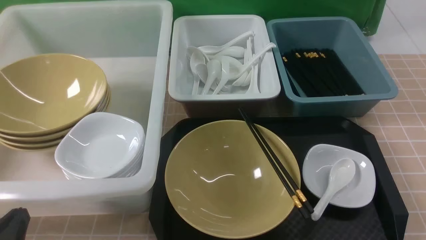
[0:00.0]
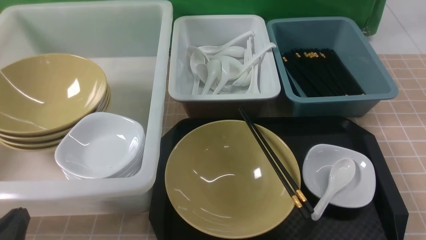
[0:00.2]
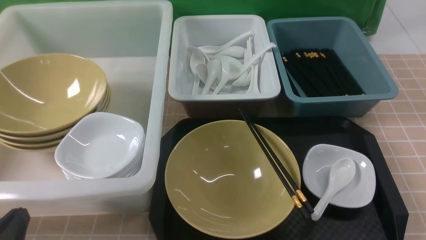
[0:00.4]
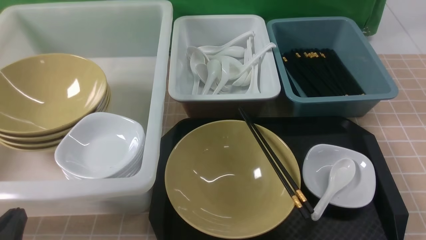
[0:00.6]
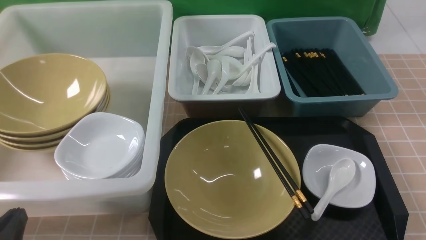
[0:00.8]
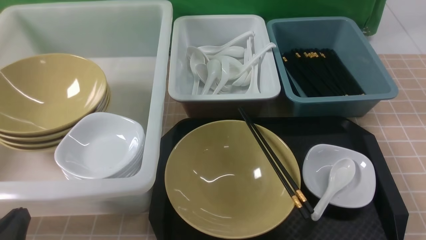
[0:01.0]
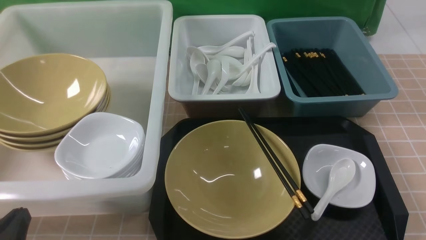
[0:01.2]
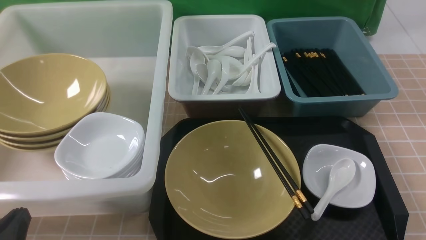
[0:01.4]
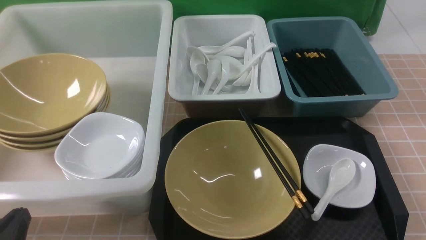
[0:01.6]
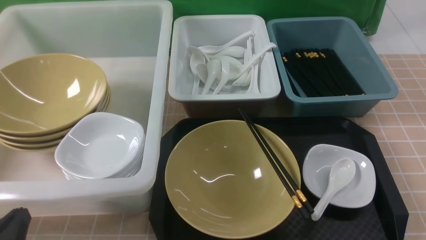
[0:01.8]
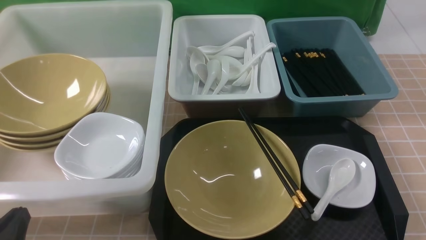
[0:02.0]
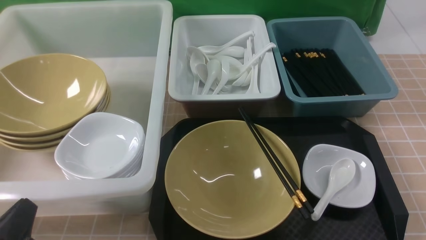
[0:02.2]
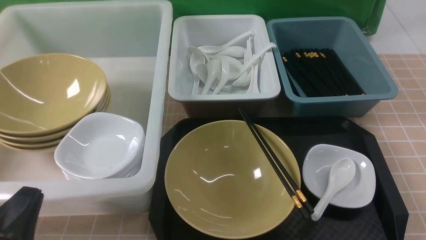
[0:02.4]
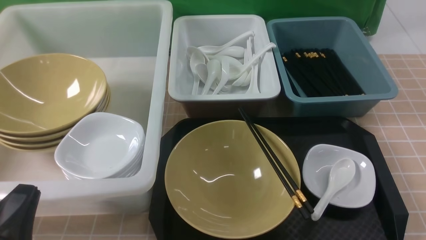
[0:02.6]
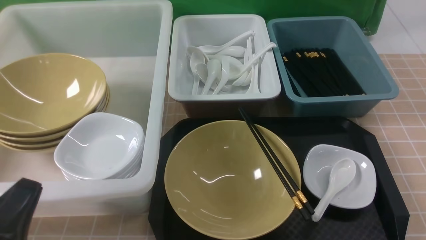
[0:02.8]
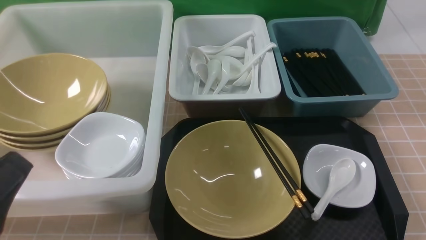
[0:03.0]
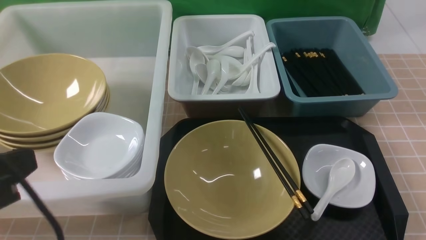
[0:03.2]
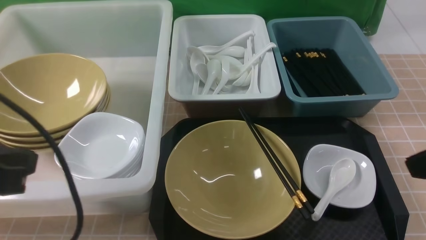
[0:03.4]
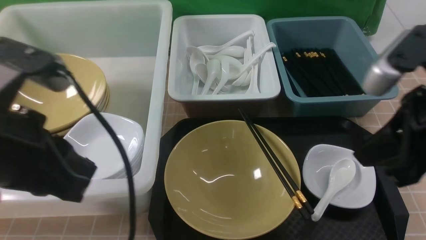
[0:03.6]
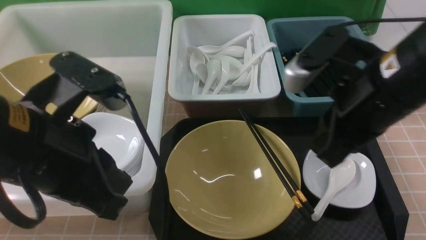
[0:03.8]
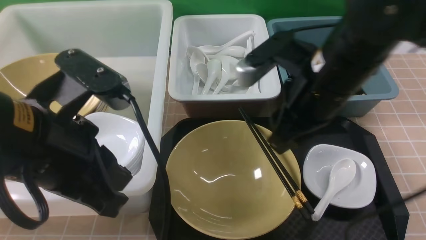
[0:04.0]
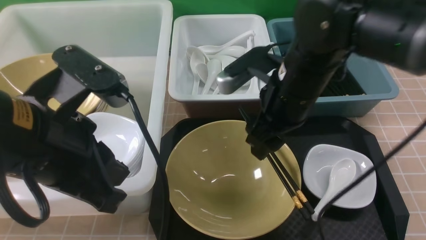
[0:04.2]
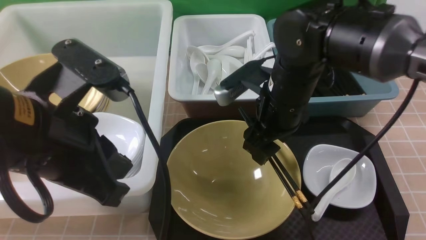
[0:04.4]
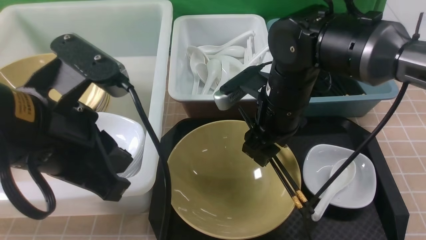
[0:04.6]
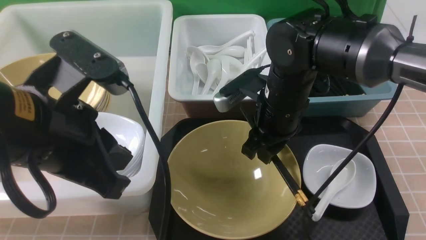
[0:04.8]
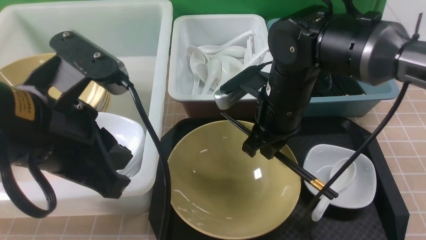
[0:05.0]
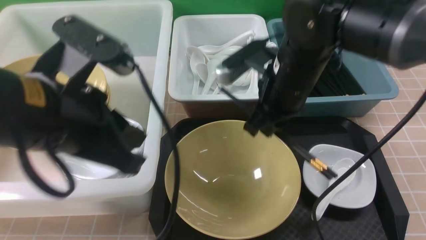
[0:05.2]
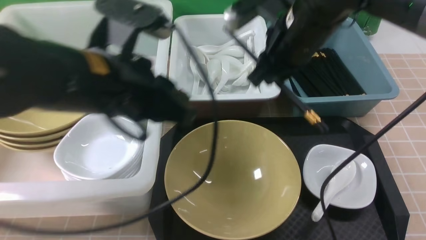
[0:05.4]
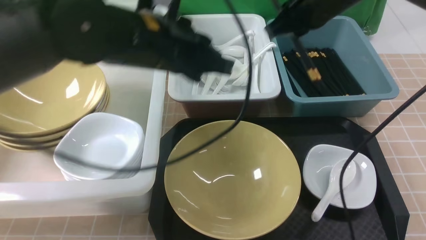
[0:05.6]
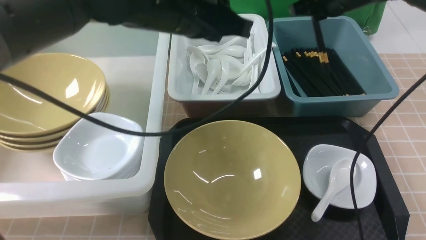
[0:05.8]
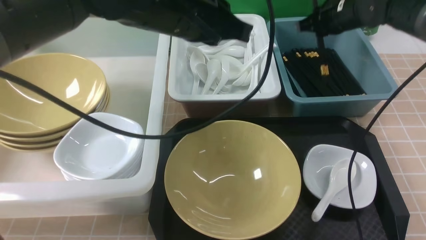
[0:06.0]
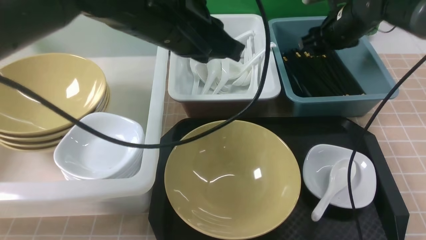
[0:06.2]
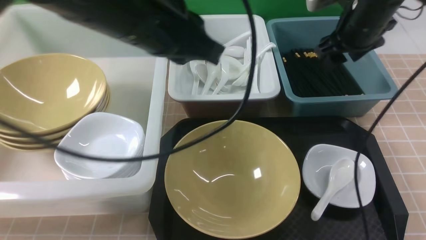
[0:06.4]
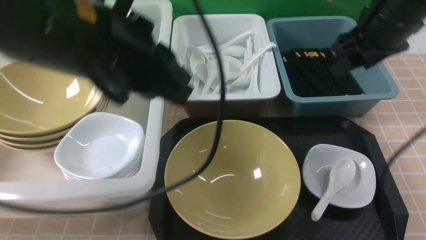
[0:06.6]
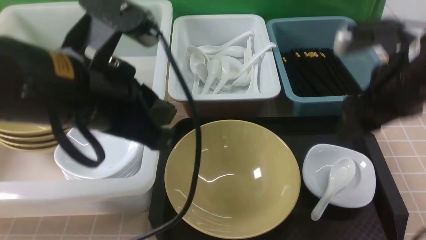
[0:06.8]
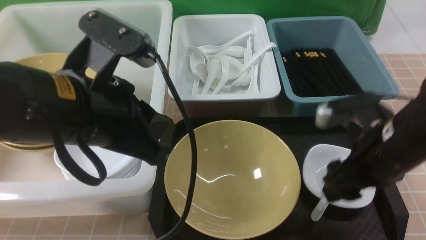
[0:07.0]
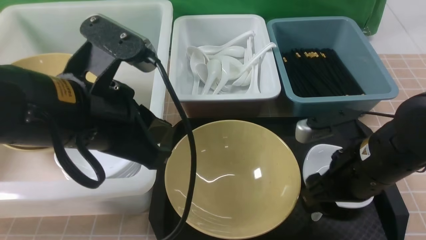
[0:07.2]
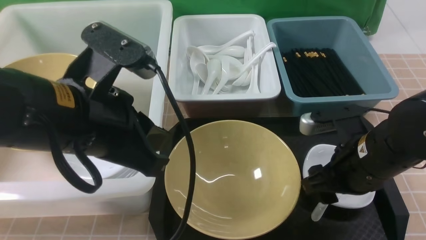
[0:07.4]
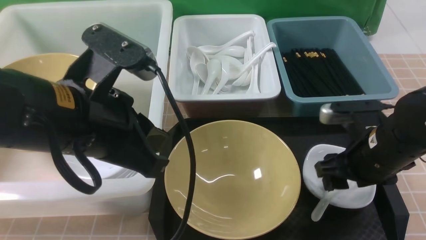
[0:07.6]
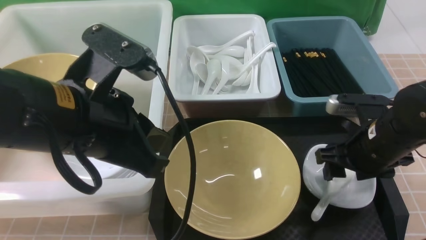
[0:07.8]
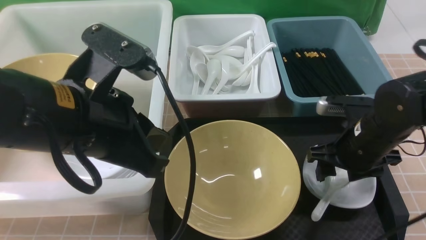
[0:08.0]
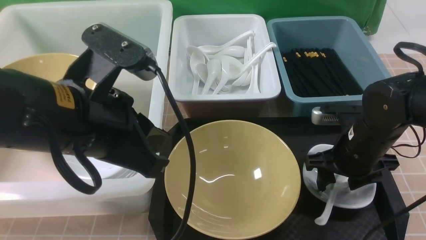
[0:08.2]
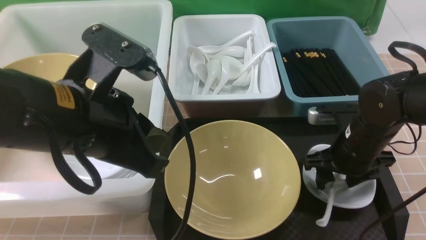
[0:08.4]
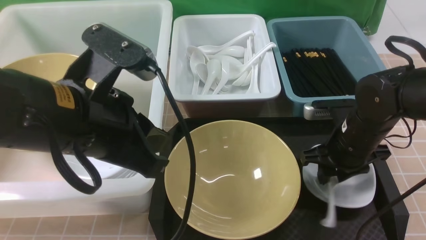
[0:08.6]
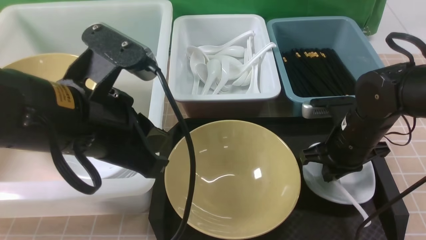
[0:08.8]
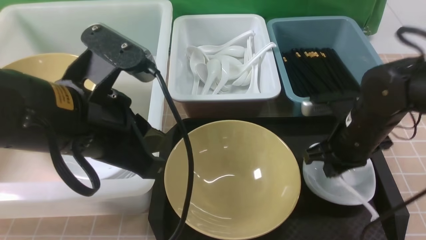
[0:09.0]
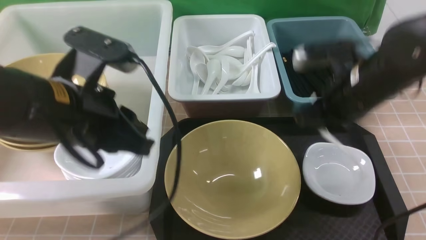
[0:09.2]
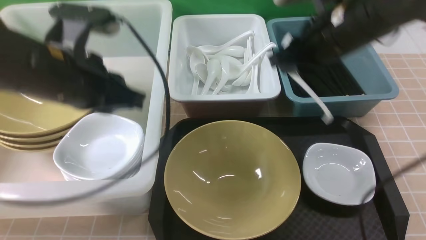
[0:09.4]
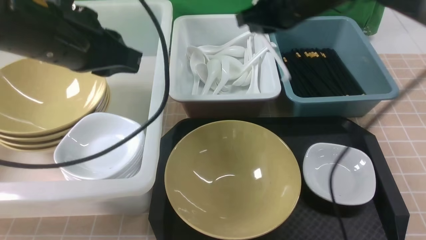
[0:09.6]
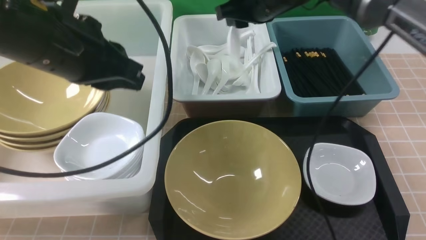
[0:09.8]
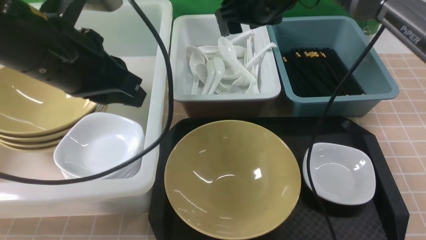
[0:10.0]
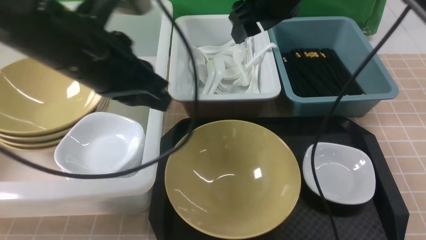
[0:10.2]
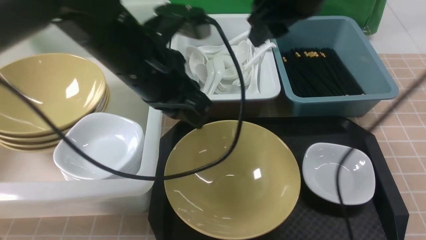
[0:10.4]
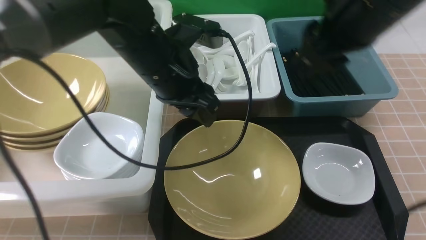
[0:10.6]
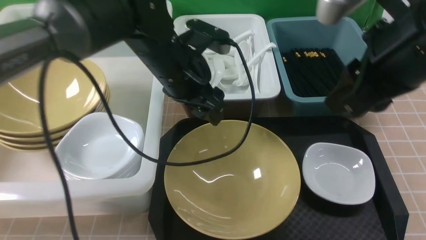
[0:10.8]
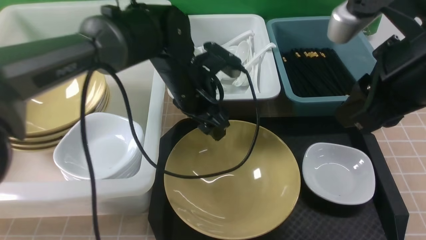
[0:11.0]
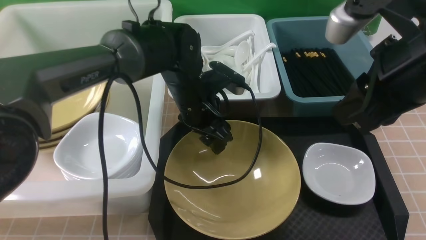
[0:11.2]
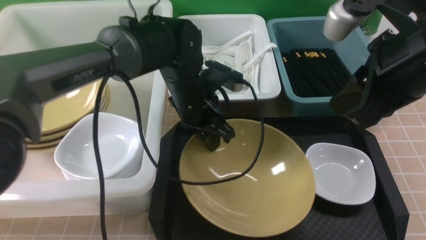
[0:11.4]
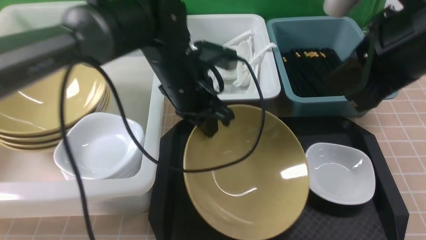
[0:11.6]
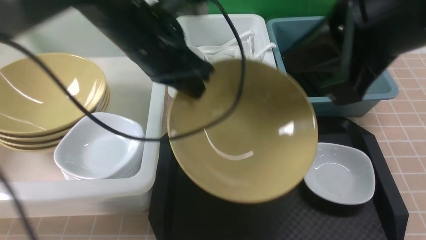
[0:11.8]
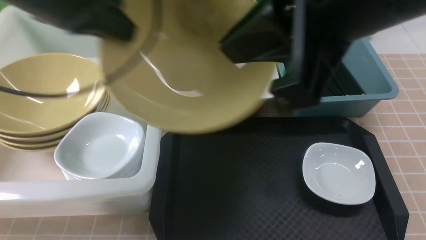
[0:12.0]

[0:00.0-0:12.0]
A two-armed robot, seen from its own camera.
Task of the whole recording: on brown table put chopsticks spoon bowls plates into blue grey white boxes.
Step, 0.0 to 5.0 s: use the right arm to grab the chopsticks.
Step, 5.2 to 6.4 s: use the right arm to put the chopsticks into the small storage box on the right.
Step, 6.8 to 8.8 s: use the right arm to grab the soup spoon in the middle.
Step, 9.0 to 10.2 s: use the right arm to put the soup spoon into the small storage box in the middle.
Step, 10.6 to 11.6 s: use the left arm to grab the yellow noodle bowl on the left.
0.0 to 1.6 s: The two grippers keep their place.
1.6 to 3.0 s: The left gripper is displaced upward by some 10 cm.
3.0 to 4.4 s: The right gripper shifts some 35 cm forward and to the left, and opens up, while the left gripper is displaced forward, to the right and upward by about 15 cm.
4.4 to 6.0 s: Both grippers move forward and to the right, roughly 20 cm. The right gripper closes up.
6.0 to 7.6 s: The right gripper shifts about 20 cm backward, and opens its fingers. Meanwhile the left gripper travels backward and to the left by roughly 15 cm.
7.6 to 9.0 s: The right gripper shifts approximately 5 cm forward, and closes up.
9.0 to 10.4 s: The left gripper goes approximately 10 cm forward; the right gripper shifts roughly 20 cm upward, and opens its fingers.
10.4 to 12.0 s: The right gripper heads backward and upward, covering roughly 20 cm, and closes. The left gripper is displaced to the left and upward by about 15 cm, and opens and closes again.

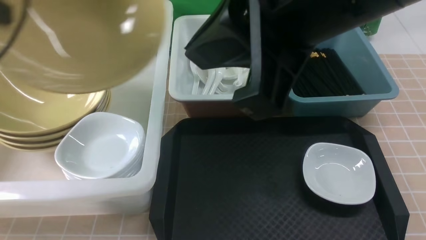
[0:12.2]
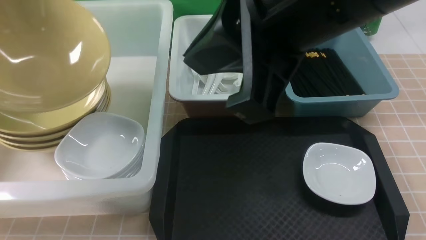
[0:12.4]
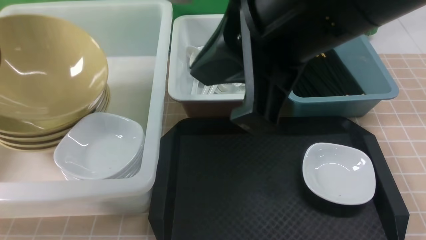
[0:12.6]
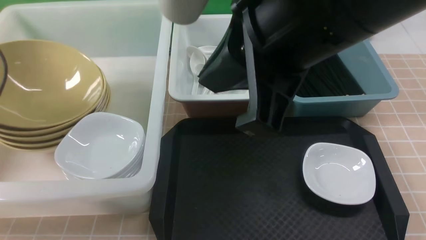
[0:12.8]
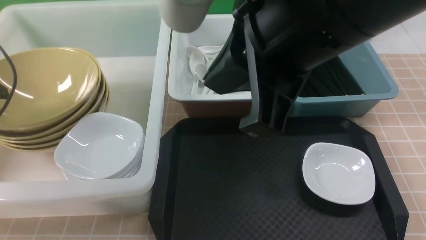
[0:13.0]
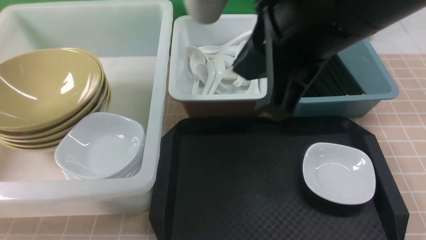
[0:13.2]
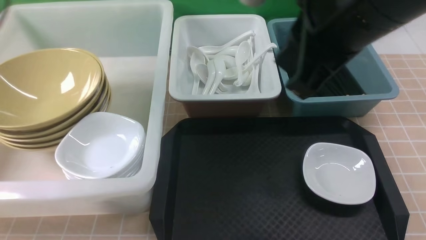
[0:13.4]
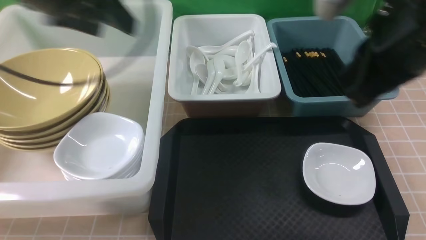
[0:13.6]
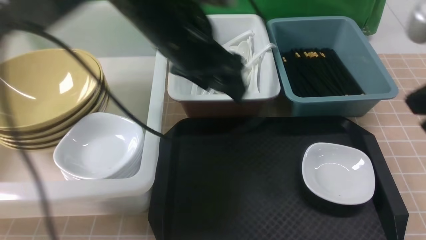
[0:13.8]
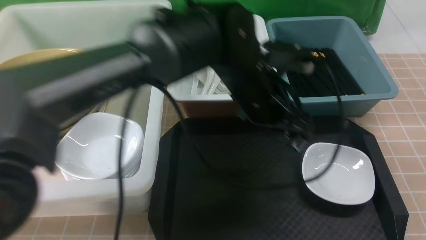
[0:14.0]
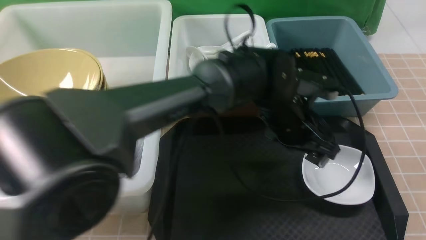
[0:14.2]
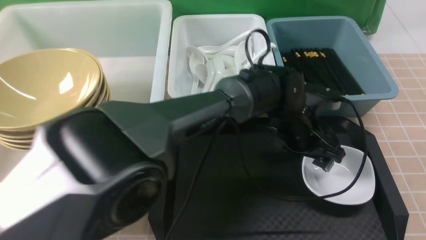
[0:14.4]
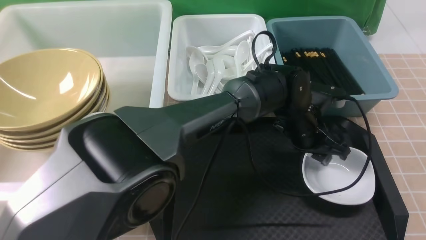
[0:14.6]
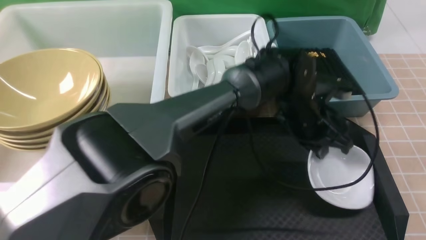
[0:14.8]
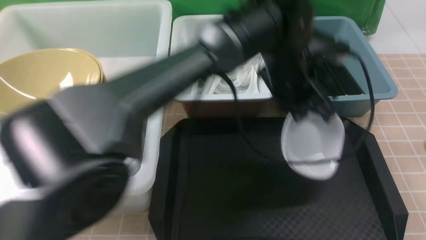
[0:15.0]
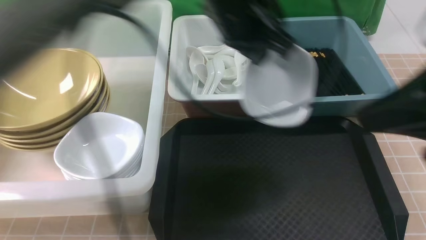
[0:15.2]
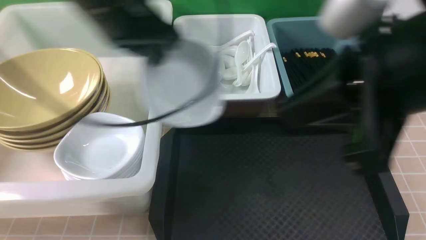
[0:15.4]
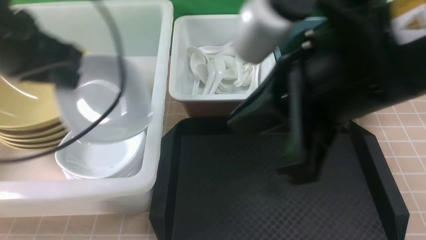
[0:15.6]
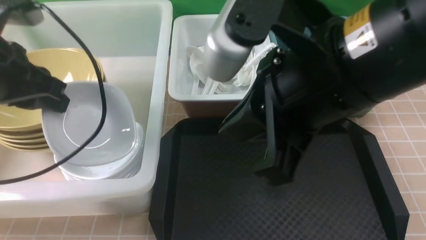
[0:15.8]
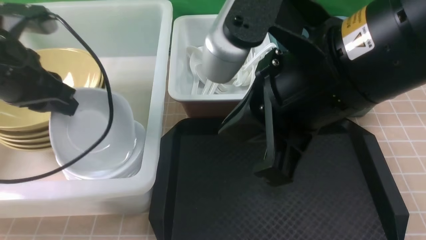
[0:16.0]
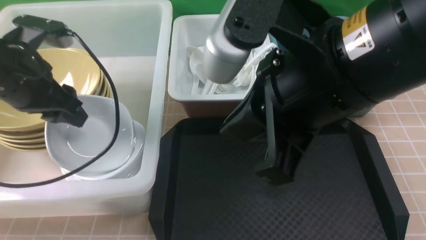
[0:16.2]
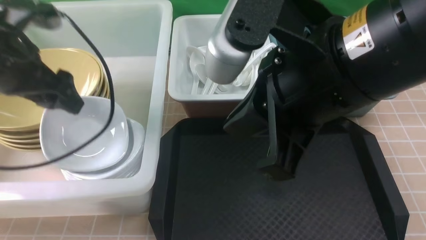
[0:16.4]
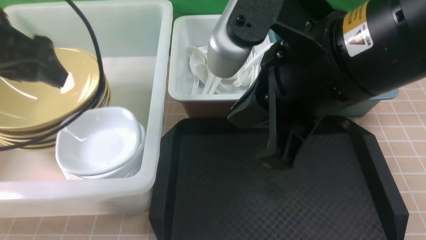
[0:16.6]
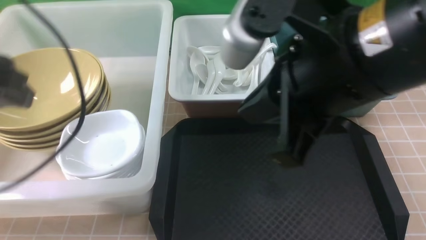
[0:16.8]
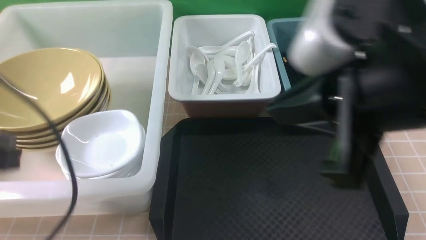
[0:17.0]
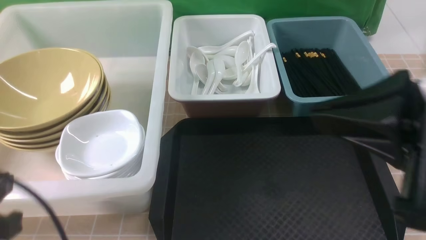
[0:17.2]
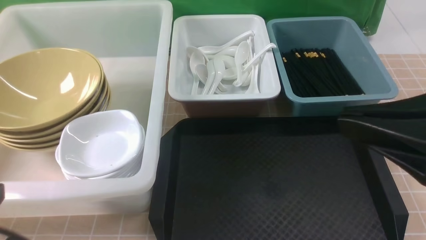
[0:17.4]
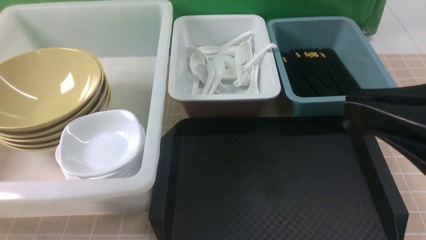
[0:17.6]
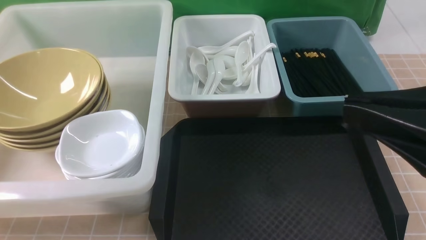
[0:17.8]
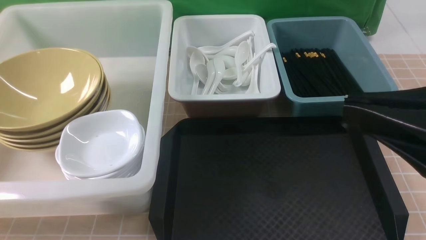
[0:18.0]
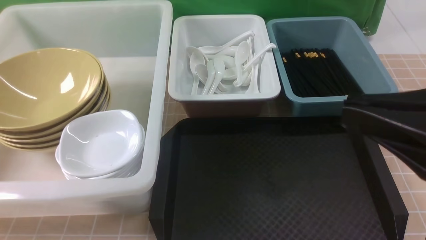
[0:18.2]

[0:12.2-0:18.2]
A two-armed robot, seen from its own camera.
Task of the whole recording: on brown table put chopsticks spoon bowls plates into blue grey white boxes.
Step, 12.2 to 13.2 s: use the left arm to put the noodle bowl into the large storage box on the left.
Step, 13.4 to 14.8 s: use the left arm to grab the plate.
Step, 15.2 to 16.8 s: use the left arm to put the plate into the large storage box on the left.
12.2 to 13.8 s: The right gripper moves to the right and downward, roughly 20 cm; the left gripper moves to the right, roughly 30 cm, and opens its fingers.
13.8 to 15.2 s: The right gripper moves about 5 cm. Meanwhile the left gripper travels downward and back again, roughly 15 cm each way, and closes its fingers.
15.2 to 16.6 s: The left gripper goes some 20 cm to the left, and opens up, while the right gripper moves to the left, some 10 cm.
16.6 to 18.2 s: The left gripper is displaced backward and downward by approximately 25 cm, and closes its fingers. Meanwhile the right gripper goes some 15 cm to the right and backward.
